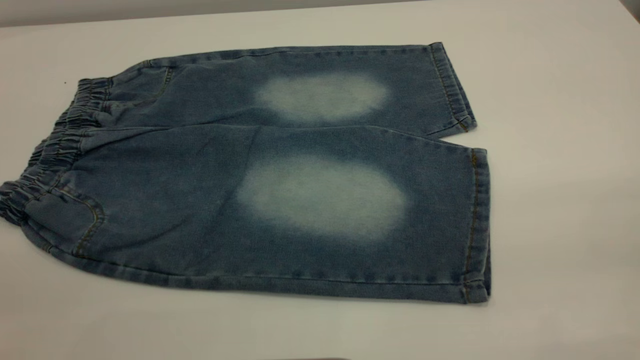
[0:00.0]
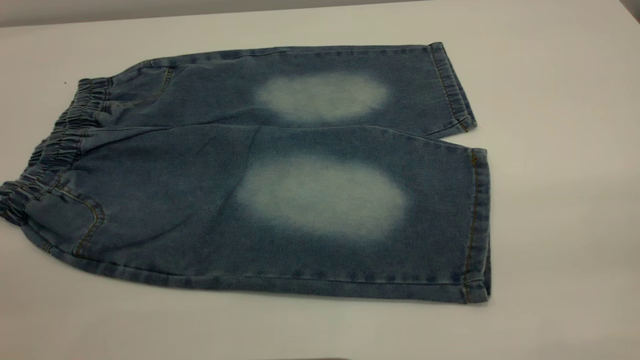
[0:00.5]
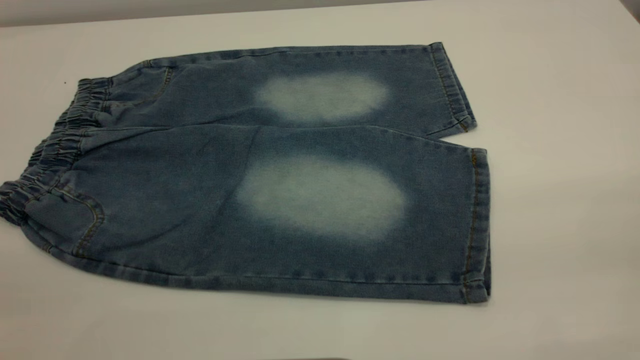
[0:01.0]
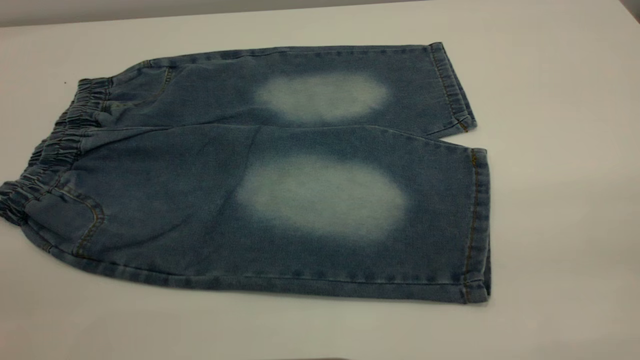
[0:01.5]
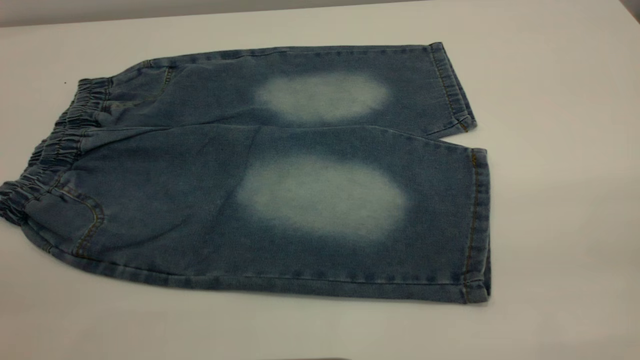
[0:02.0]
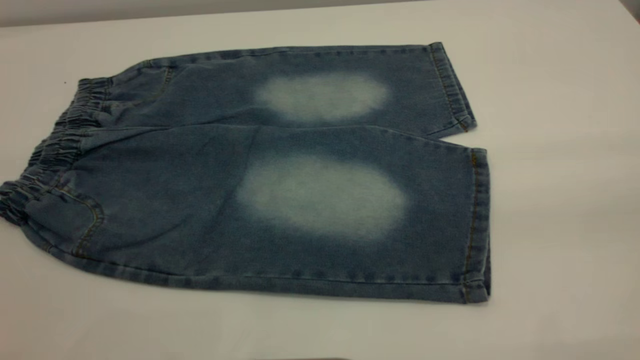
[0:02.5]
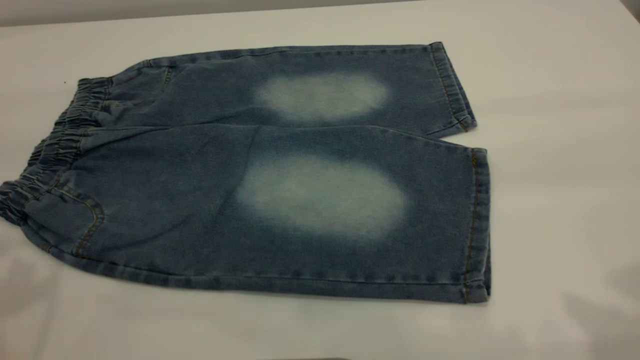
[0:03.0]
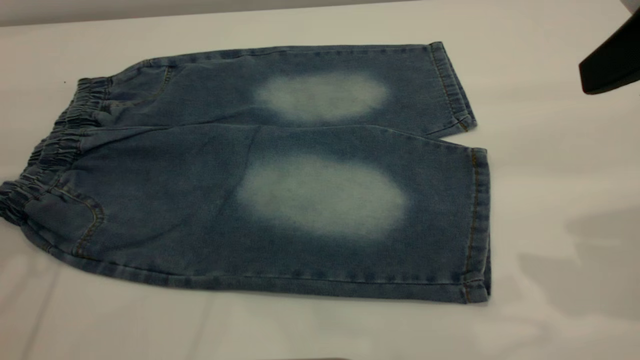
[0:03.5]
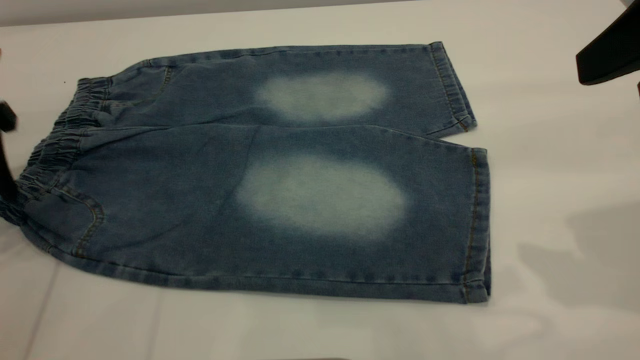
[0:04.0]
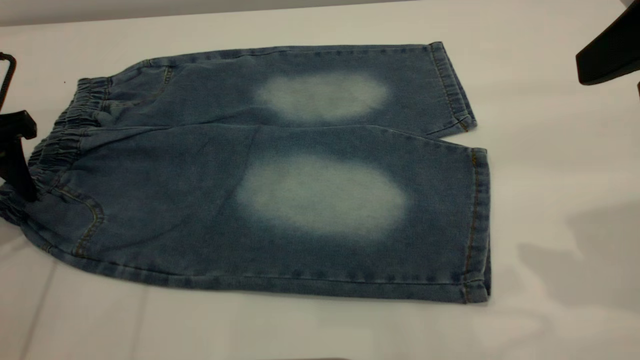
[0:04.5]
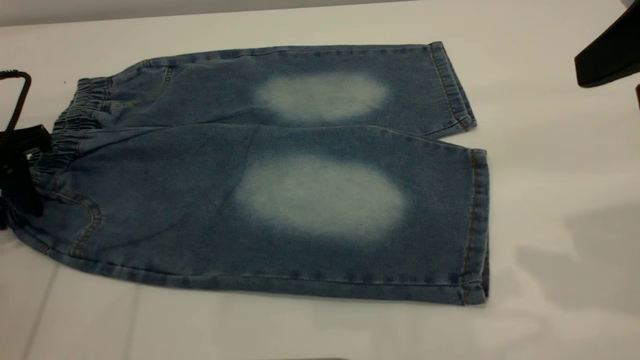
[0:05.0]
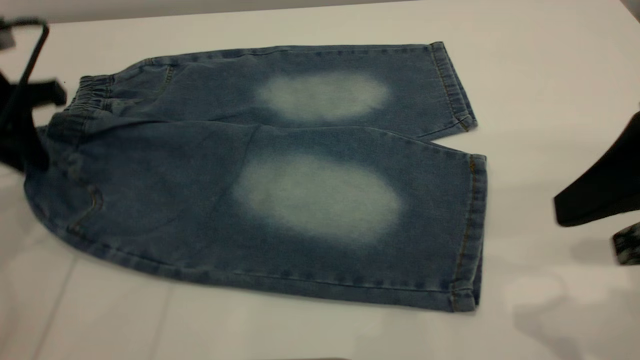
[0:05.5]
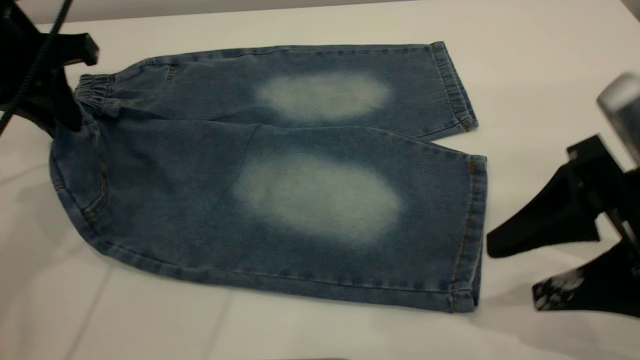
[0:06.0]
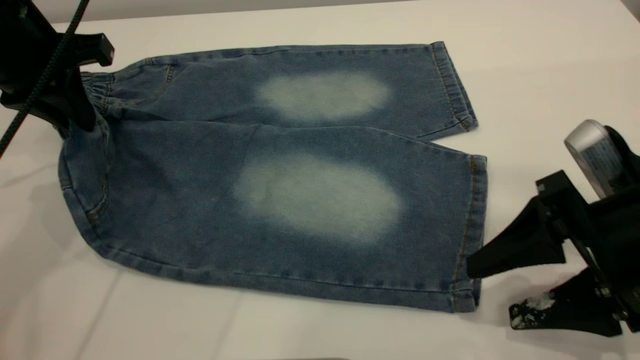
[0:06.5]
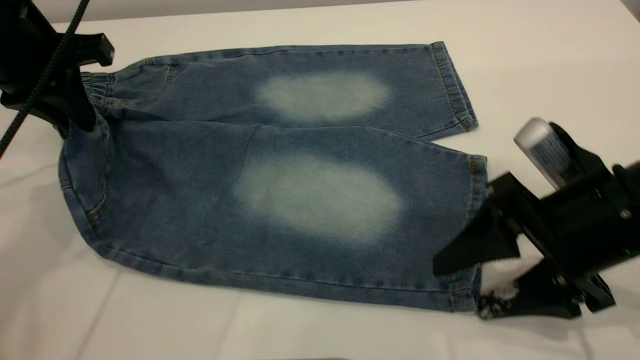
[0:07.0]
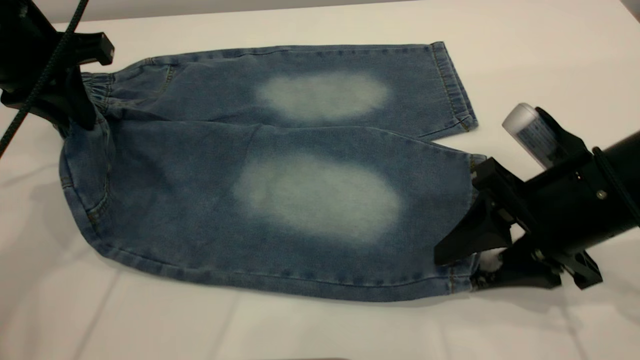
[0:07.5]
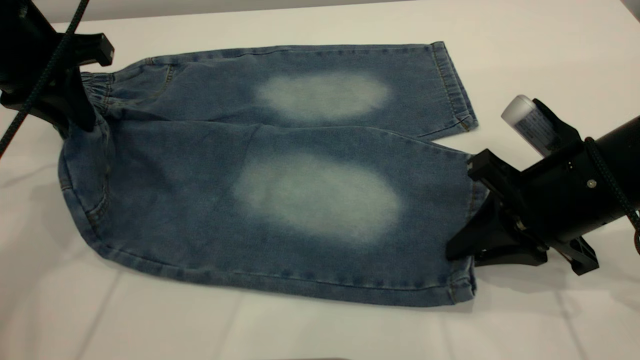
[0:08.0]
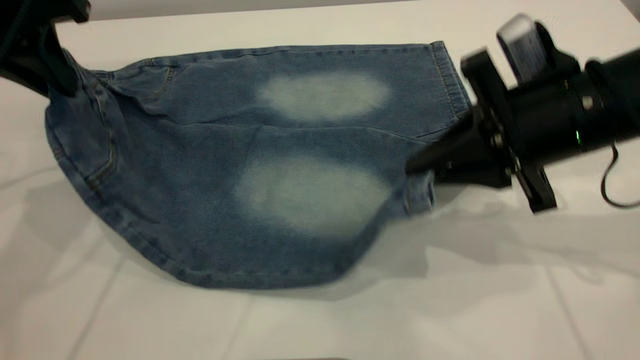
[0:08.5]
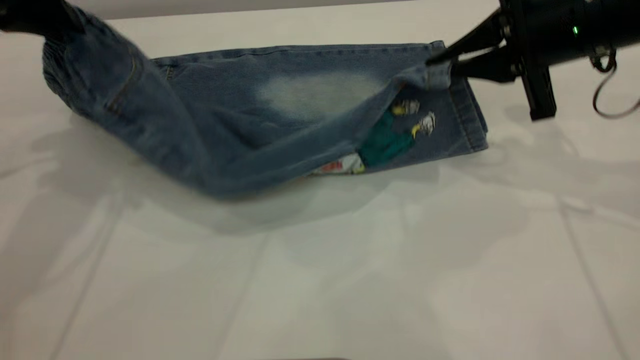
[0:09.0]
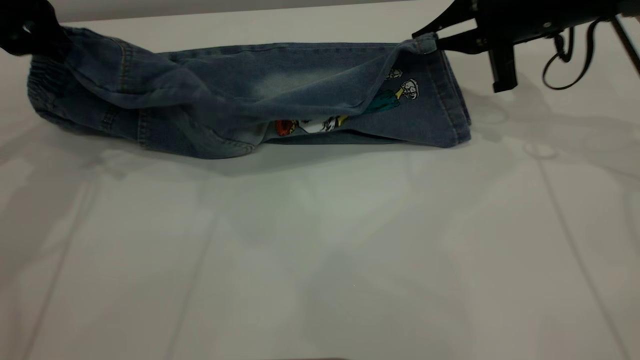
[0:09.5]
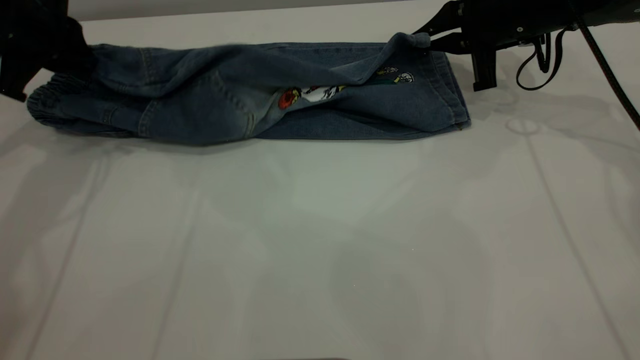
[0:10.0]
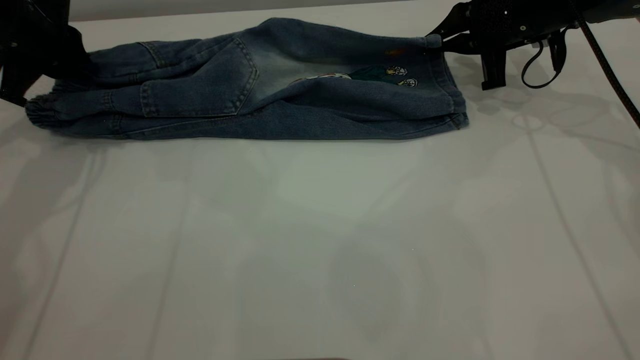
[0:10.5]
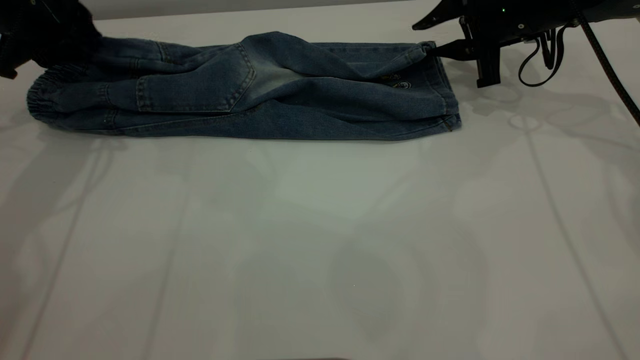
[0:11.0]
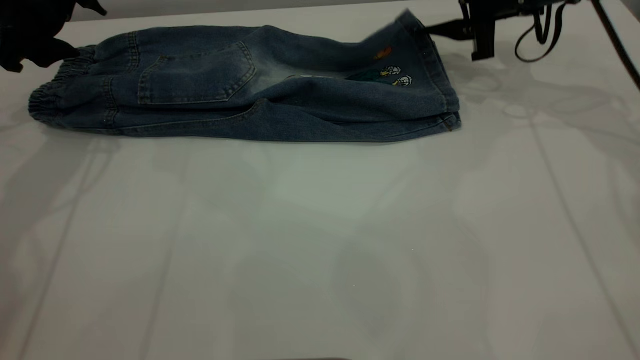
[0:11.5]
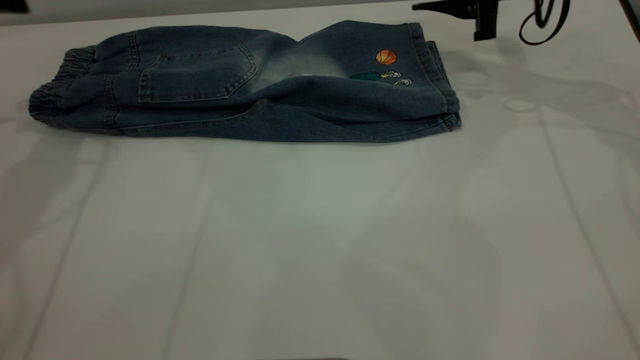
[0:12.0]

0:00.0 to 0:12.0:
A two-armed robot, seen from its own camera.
Step, 0:00.0 to 0:12.0: Fold the bottom of the pants upward.
0:00.0 to 0:02.0: Neither gripper changes place.
0:02.0 to 0:04.0: The right gripper heads forward, covering about 20 cm; the left gripper is displaced forward and downward by approximately 35 cm.
0:04.0 to 0:06.0: The right gripper goes about 15 cm downward. Meanwhile the left gripper moves to the right, roughly 10 cm, and closes up.
0:06.0 to 0:08.0: The right gripper goes approximately 5 cm forward, and closes up.
0:08.0 to 0:10.0: The right gripper is displaced forward by some 20 cm. The left gripper moves forward, some 10 cm.
0:10.0 to 0:12.0: The right gripper opens its fingers. The left gripper goes about 5 cm upward, and opens up.

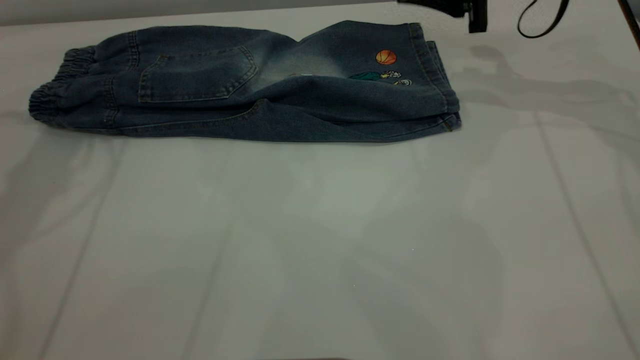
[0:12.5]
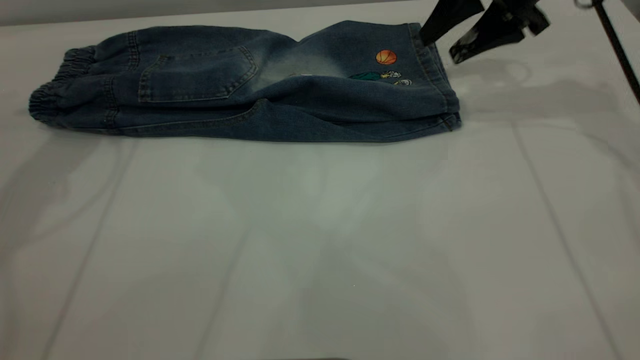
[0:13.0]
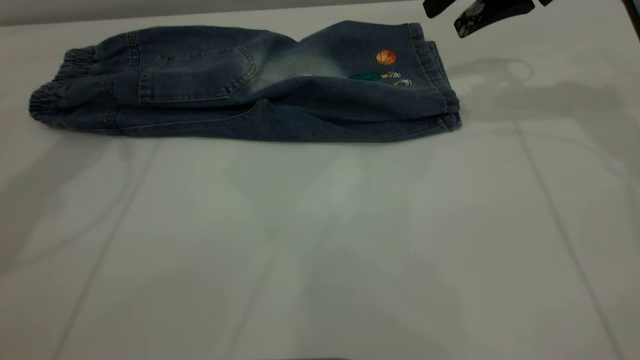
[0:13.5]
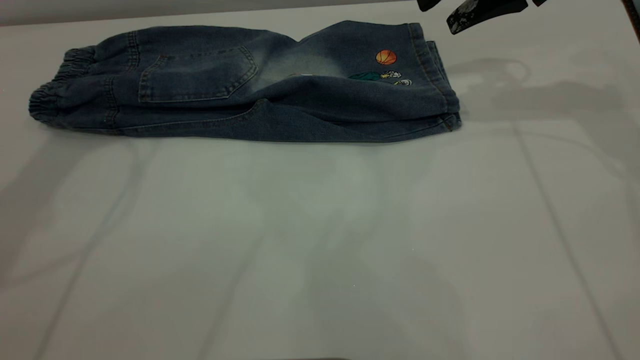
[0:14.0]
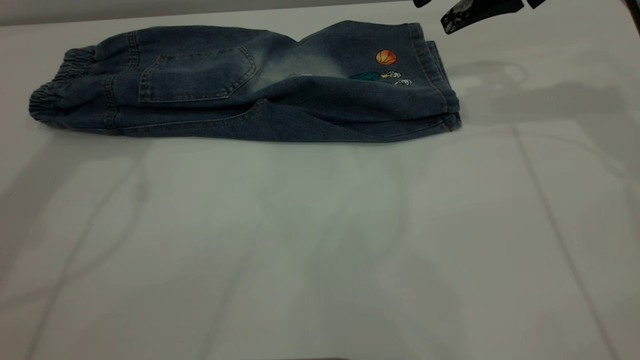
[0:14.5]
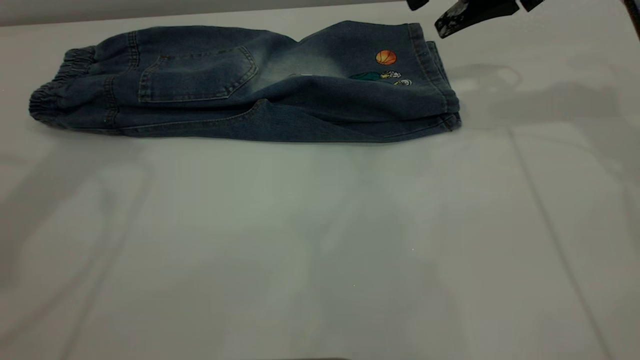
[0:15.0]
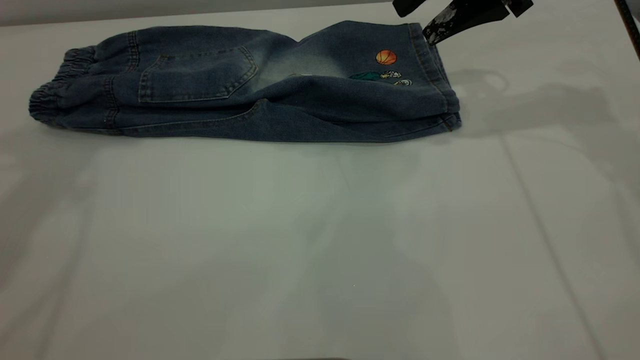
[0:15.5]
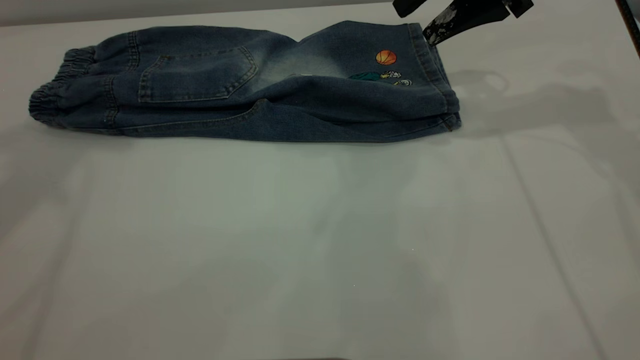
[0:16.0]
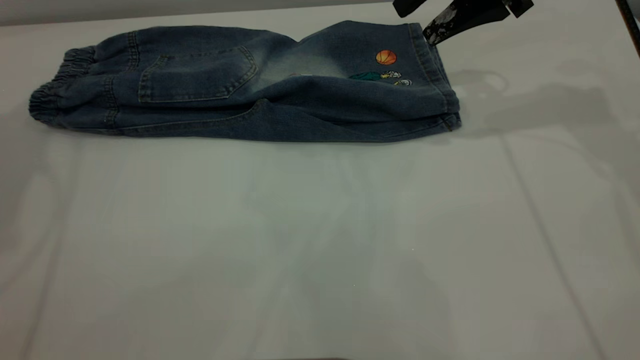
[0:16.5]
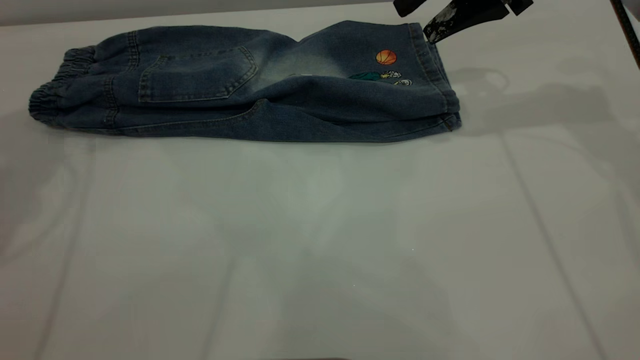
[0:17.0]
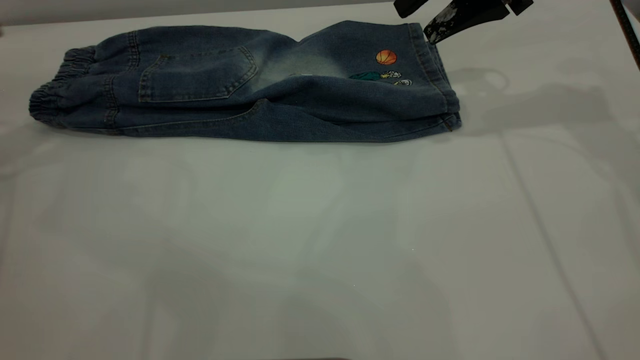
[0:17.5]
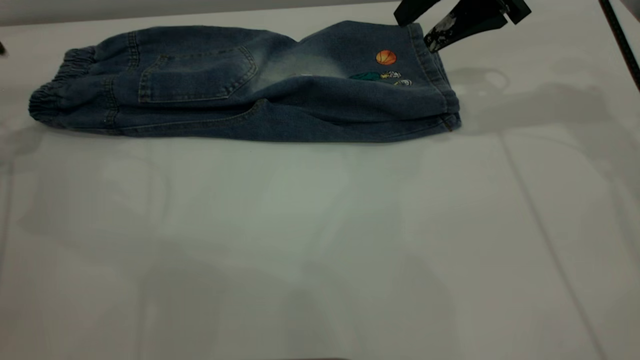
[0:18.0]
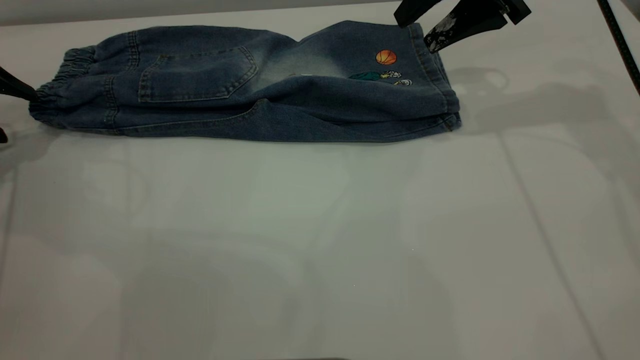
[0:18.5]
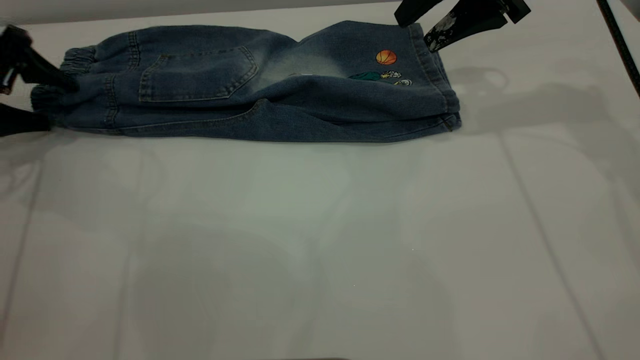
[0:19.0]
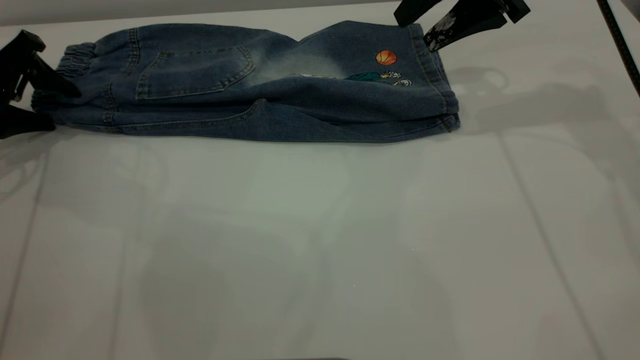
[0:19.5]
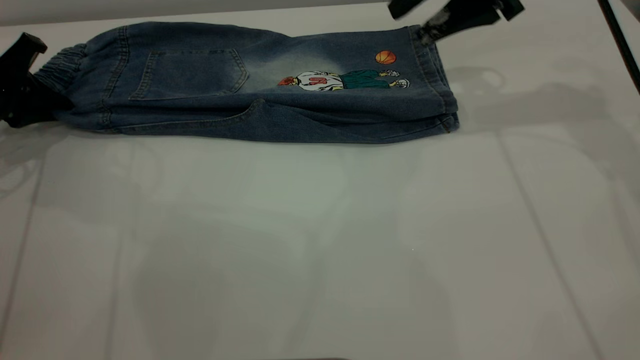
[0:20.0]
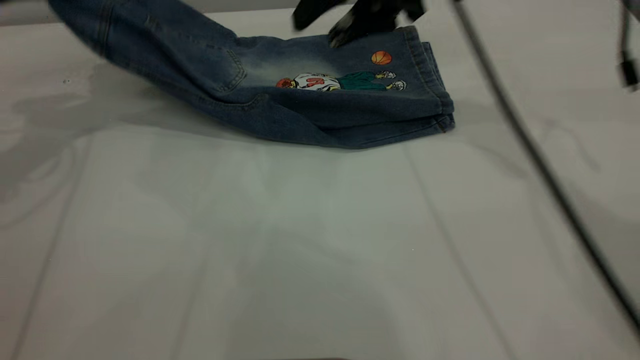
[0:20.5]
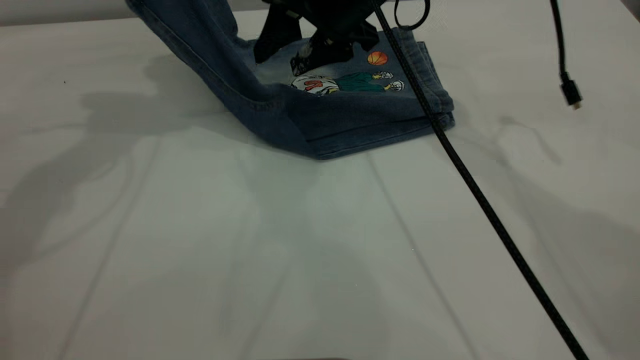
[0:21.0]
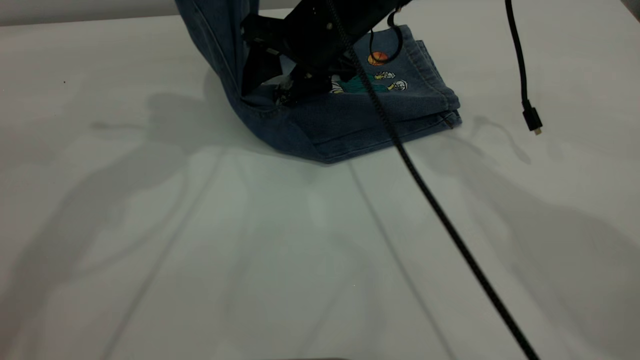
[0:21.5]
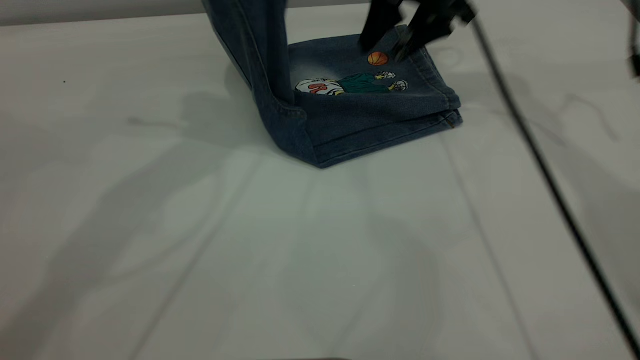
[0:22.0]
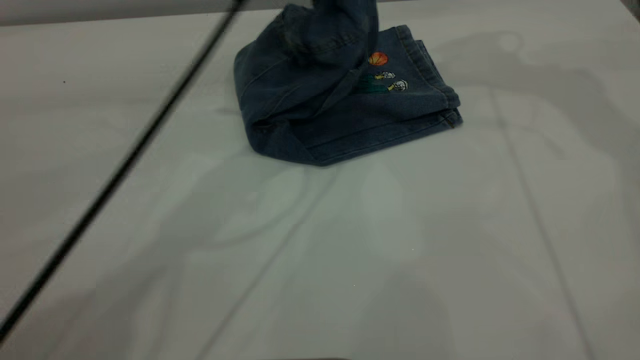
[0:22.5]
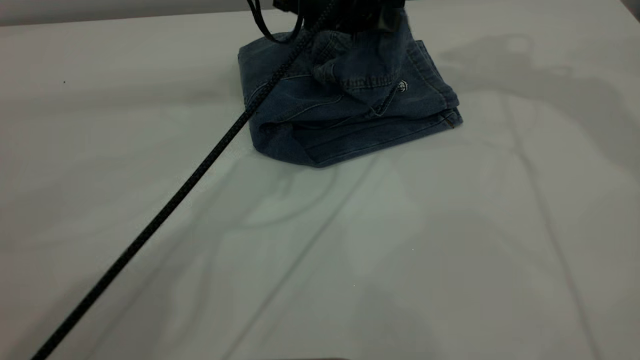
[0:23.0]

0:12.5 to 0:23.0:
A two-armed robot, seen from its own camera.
0:12.5 to 0:14.5: The right gripper goes some 5 cm upward.
0:16.5 to 0:19.0: The left gripper moves downward, about 25 cm, and opens up.
0:19.0 to 0:21.0: The left gripper is displaced upward and to the right by some 20 cm, and closes. Meanwhile the right gripper moves to the left, some 15 cm.
0:21.0 to 0:23.0: The left gripper is displaced to the right and downward by roughly 25 cm, and opens its fingers; the right gripper heads upward and to the right, covering some 25 cm.
